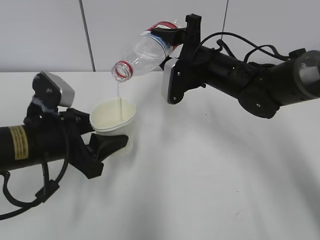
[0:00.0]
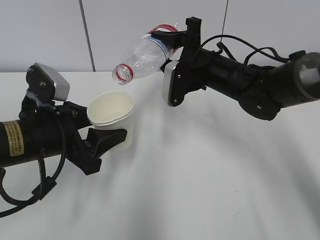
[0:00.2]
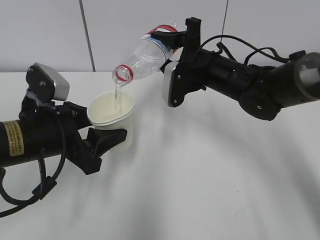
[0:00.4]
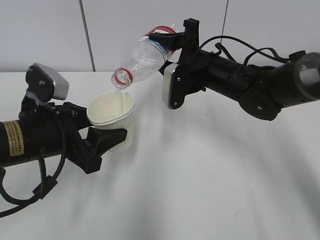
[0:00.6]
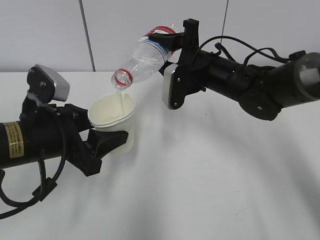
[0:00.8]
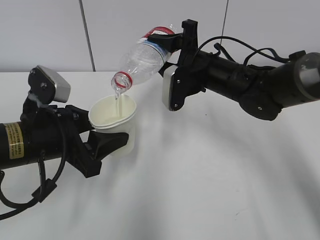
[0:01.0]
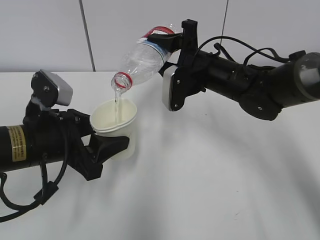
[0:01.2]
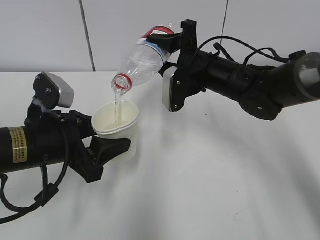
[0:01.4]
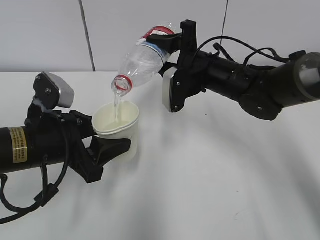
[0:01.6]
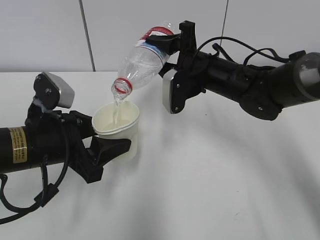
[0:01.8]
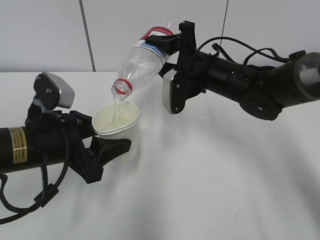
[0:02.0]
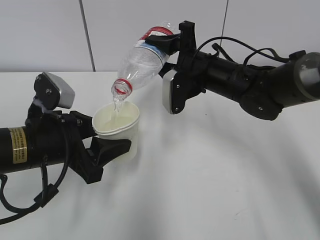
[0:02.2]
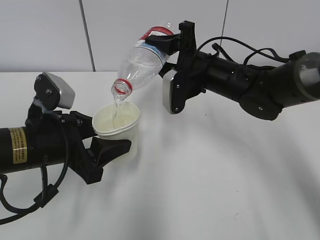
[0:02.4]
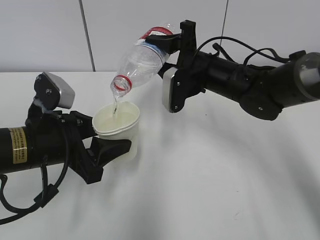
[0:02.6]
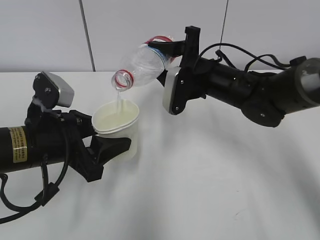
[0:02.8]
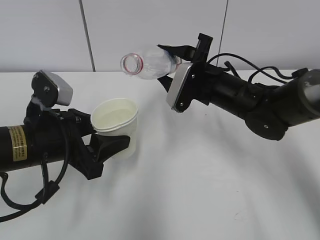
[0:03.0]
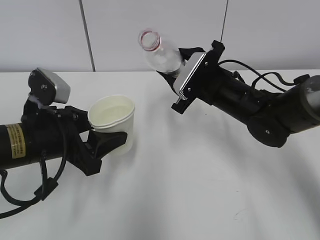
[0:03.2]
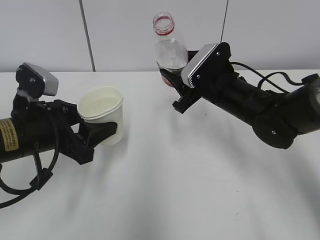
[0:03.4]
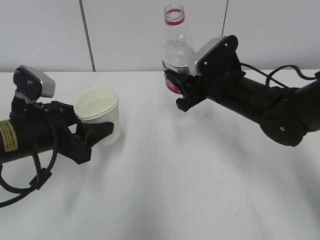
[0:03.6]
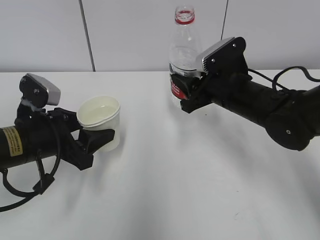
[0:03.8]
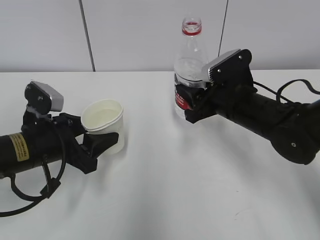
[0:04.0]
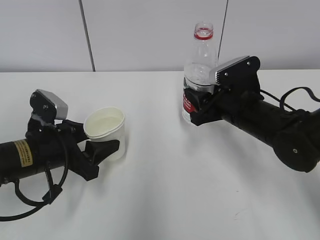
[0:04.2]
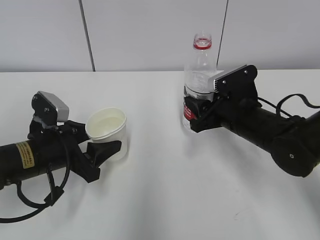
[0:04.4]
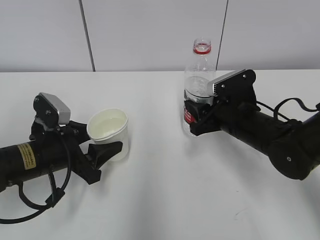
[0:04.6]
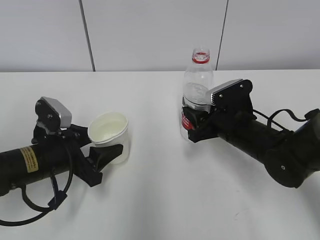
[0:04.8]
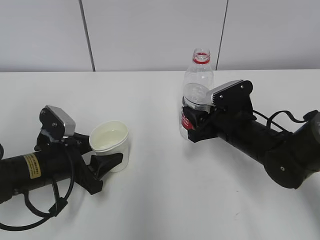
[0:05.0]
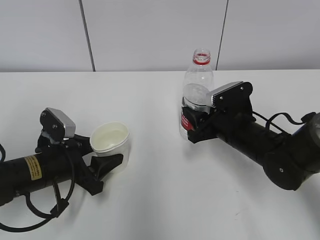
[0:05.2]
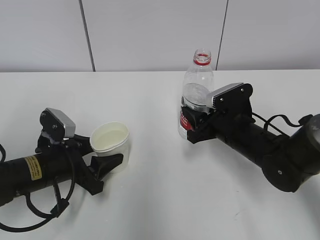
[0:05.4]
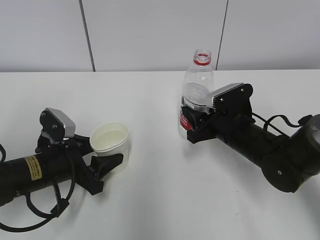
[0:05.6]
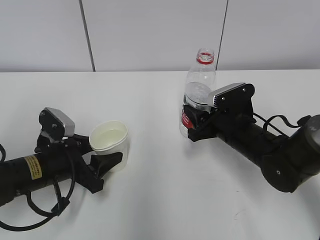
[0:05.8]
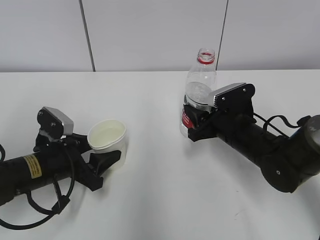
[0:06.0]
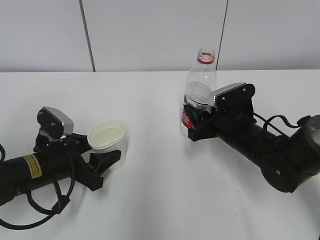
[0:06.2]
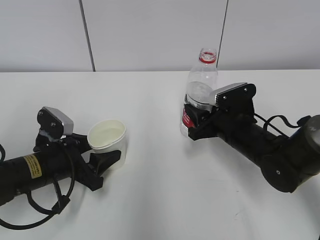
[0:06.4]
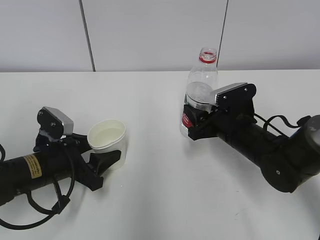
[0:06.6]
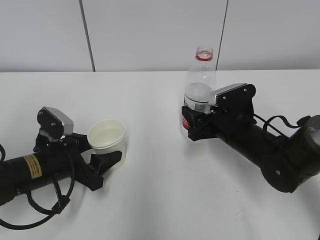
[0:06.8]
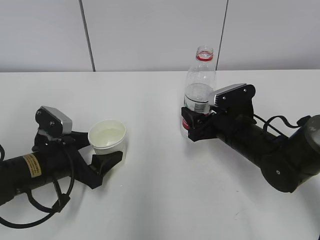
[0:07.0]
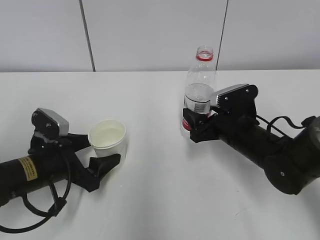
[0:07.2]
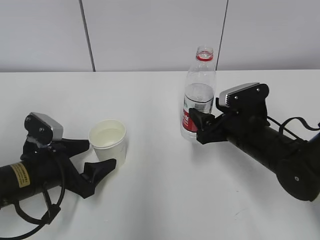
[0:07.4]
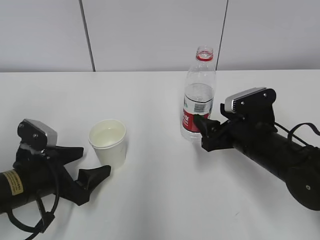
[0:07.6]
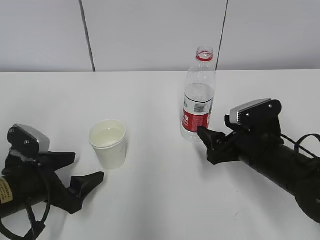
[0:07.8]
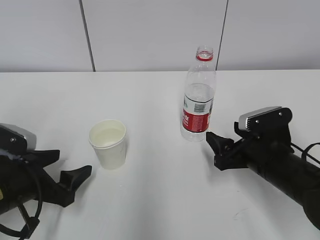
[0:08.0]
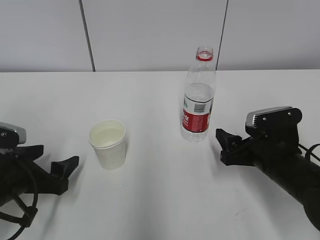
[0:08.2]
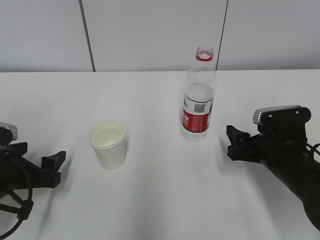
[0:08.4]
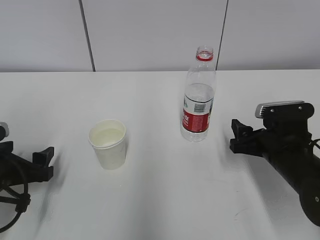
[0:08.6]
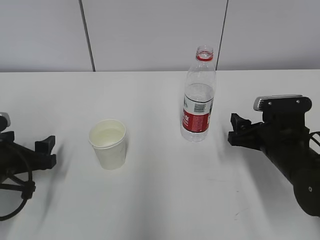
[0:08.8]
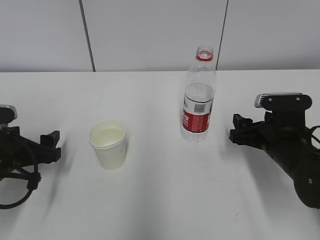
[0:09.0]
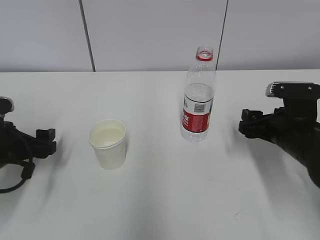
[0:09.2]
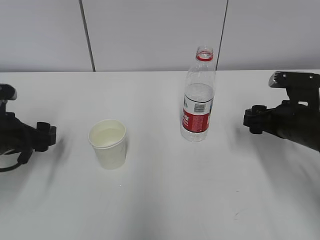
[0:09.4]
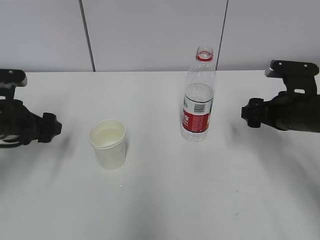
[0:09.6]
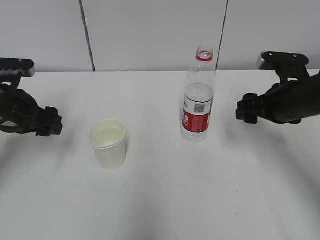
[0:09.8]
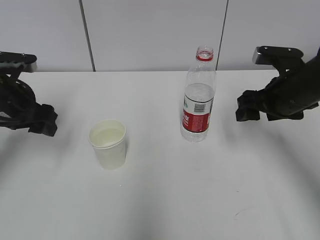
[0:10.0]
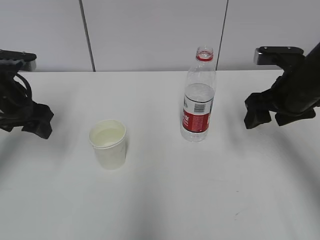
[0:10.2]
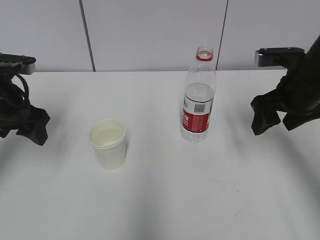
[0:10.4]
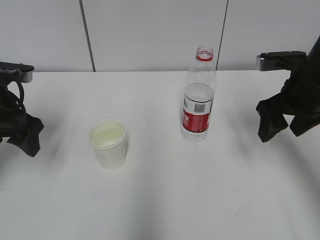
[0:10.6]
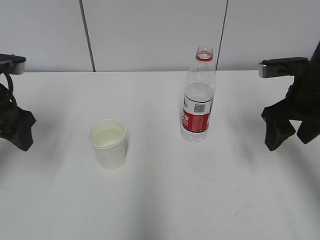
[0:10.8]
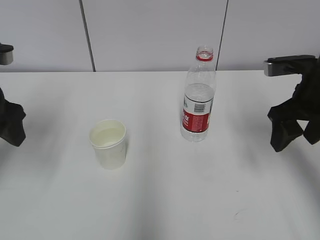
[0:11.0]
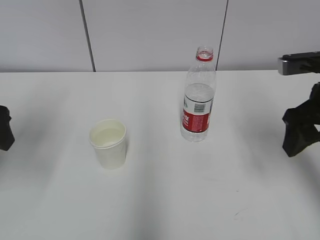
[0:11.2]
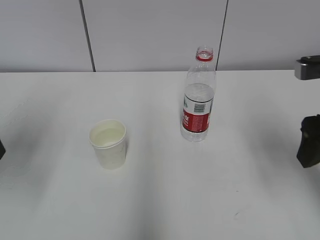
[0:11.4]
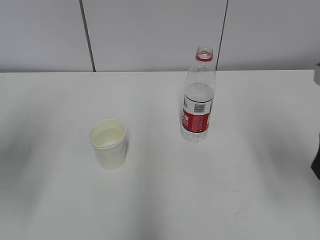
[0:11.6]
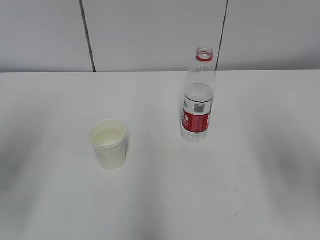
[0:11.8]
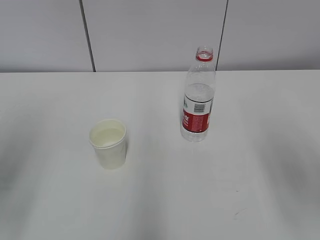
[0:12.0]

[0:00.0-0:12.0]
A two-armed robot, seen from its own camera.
Step, 0.0 to 0.6 s: Collect water with the right hand.
Step, 0.8 to 3.2 s: Place the paper cup with the left hand.
0.0 to 1.6 s: There are only small adjustments of the grippers.
3.0 to 4.4 s: The right gripper shifts by about 5 cm. The left gripper is displaced downward by roughly 5 cm.
4.4 to 6.0 s: The grippers stay close to where they were, moving slightly.
6.0 to 7.6 s: The right gripper opens, while the left gripper opens.
7.6 to 9.0 s: The left gripper shifts some 5 cm to the left.
9.0 to 10.4 s: The right gripper heads upward, covering roughly 10 cm, while the left gripper shifts approximately 15 cm upward and forward.
10.4 to 12.0 s: The right gripper shifts some 20 cm backward; the left gripper shifts approximately 20 cm backward and upward.

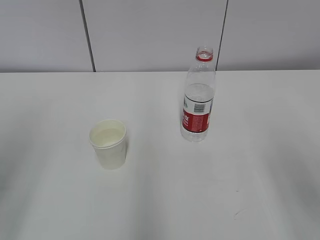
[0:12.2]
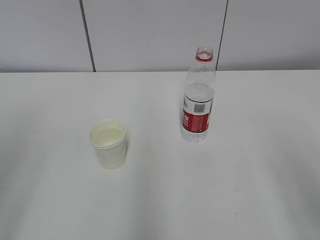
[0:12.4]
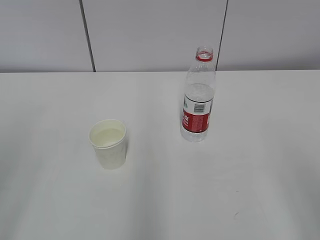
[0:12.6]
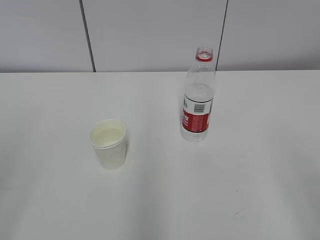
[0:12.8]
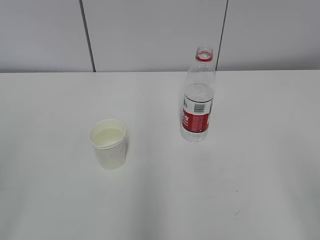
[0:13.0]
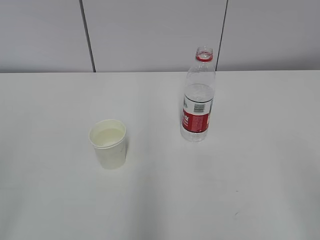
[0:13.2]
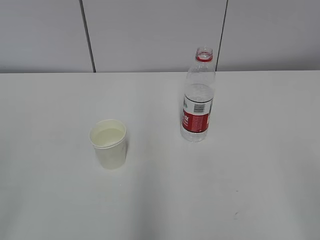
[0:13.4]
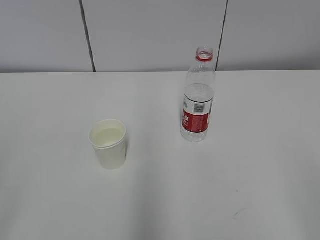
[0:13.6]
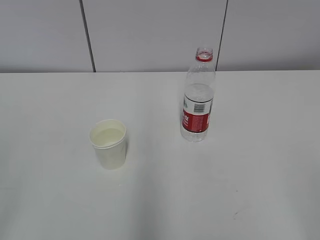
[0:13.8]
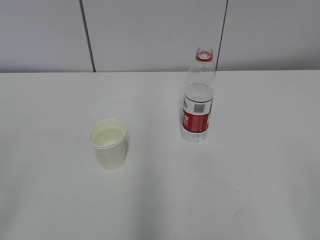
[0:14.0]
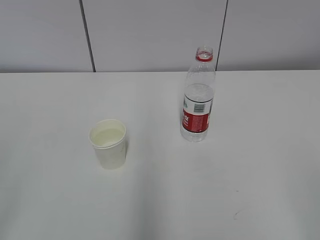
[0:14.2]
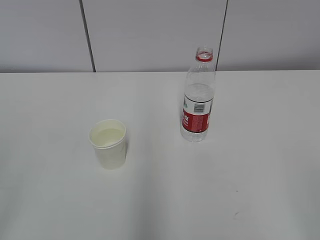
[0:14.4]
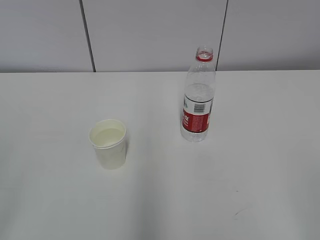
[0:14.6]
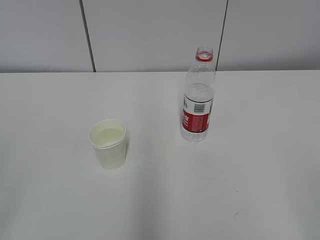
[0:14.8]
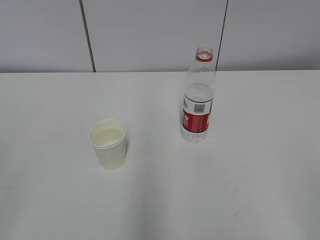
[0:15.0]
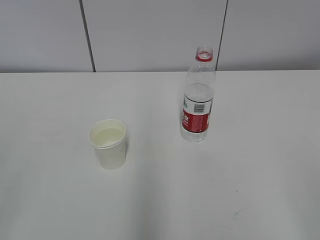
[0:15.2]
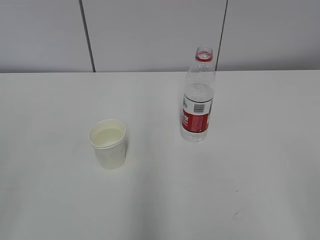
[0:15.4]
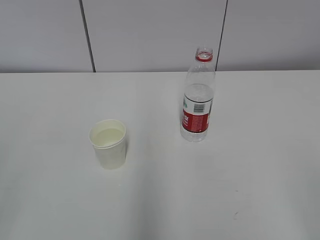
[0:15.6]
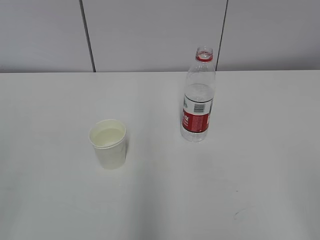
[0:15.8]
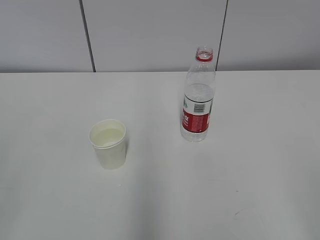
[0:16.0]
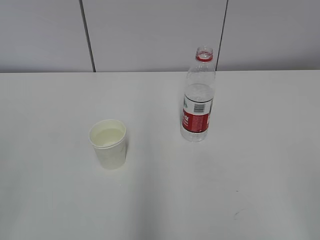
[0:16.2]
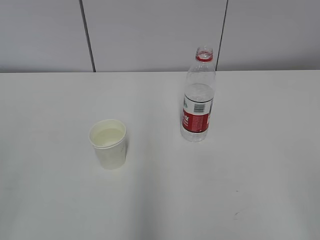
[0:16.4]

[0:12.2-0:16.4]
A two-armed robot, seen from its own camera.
15.0 to 16.4 s: Both grippers stay put.

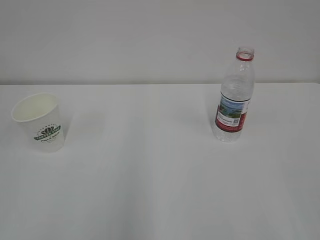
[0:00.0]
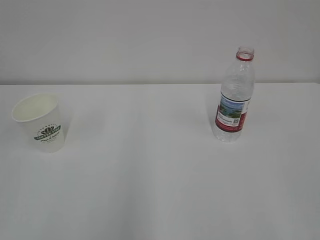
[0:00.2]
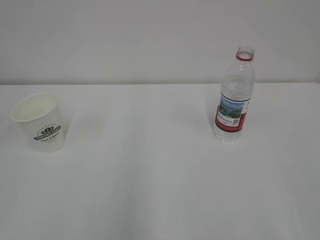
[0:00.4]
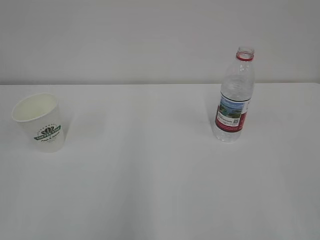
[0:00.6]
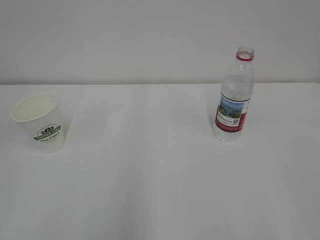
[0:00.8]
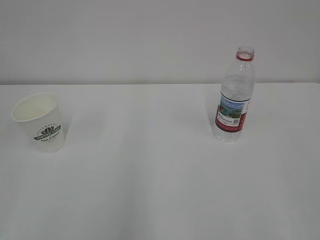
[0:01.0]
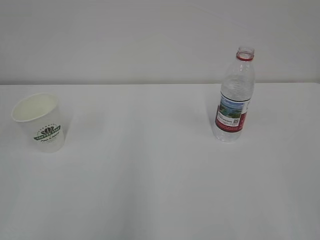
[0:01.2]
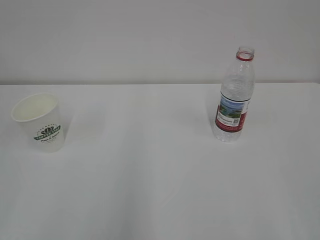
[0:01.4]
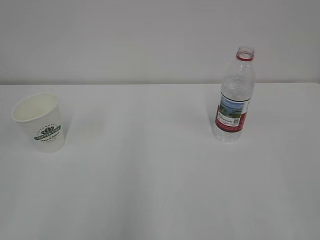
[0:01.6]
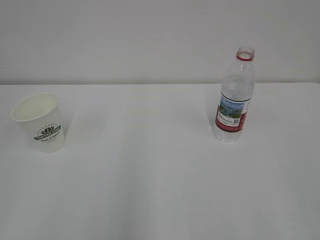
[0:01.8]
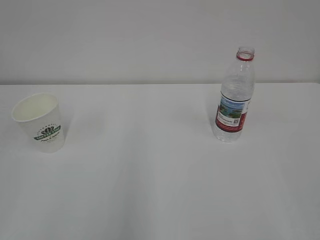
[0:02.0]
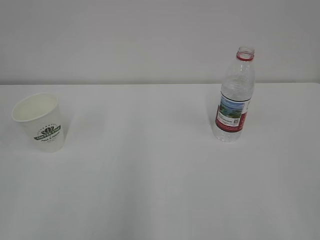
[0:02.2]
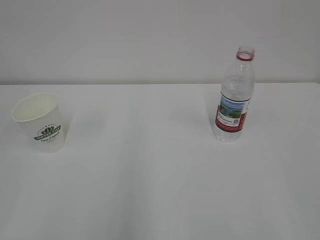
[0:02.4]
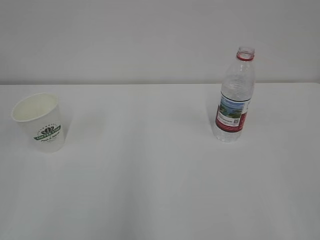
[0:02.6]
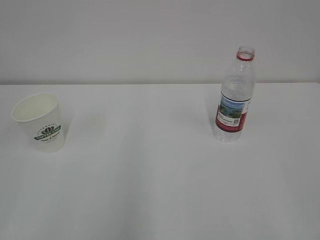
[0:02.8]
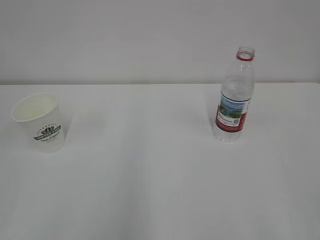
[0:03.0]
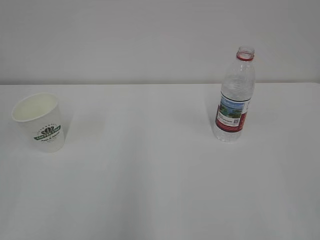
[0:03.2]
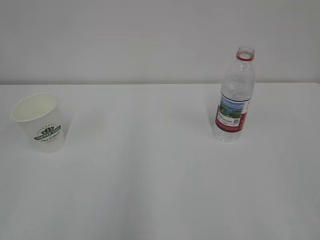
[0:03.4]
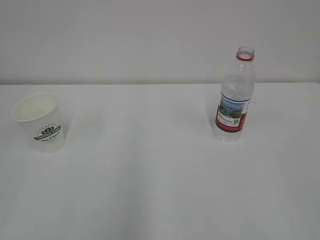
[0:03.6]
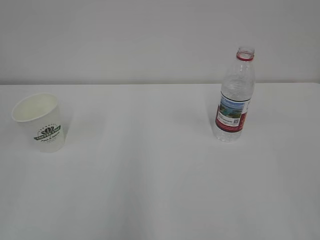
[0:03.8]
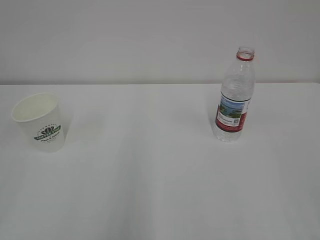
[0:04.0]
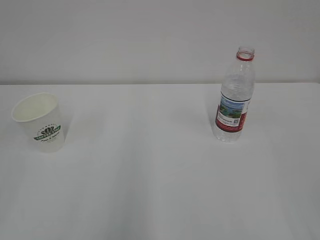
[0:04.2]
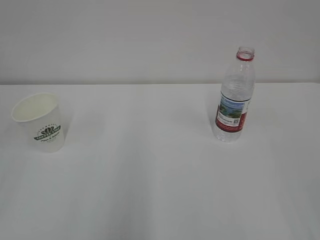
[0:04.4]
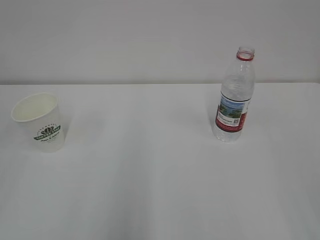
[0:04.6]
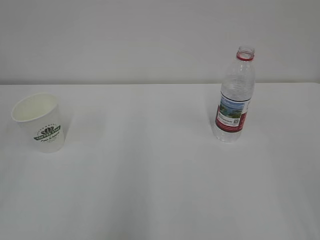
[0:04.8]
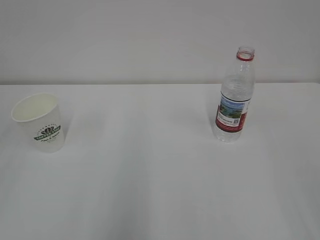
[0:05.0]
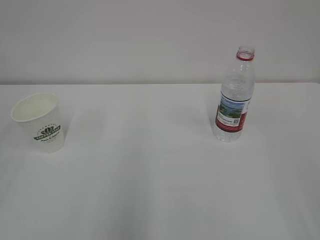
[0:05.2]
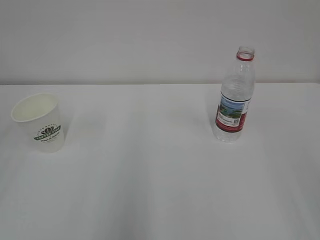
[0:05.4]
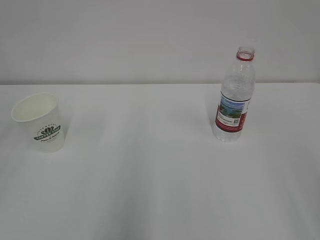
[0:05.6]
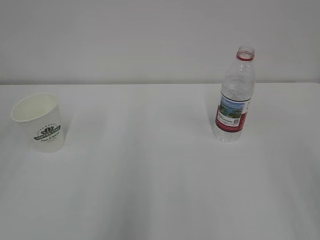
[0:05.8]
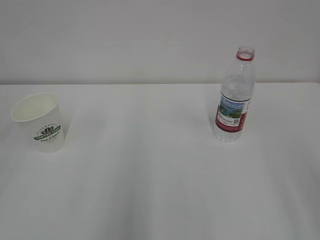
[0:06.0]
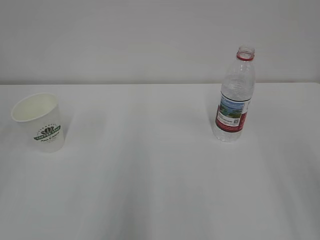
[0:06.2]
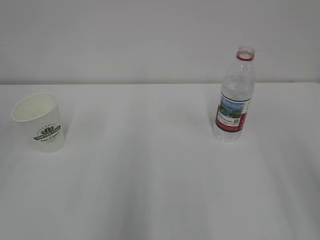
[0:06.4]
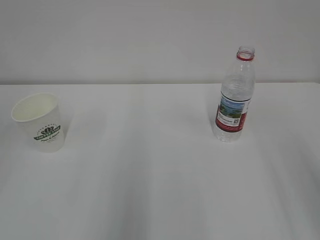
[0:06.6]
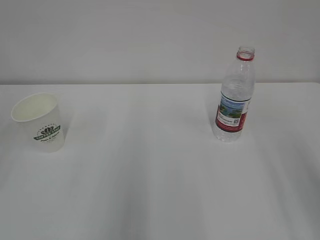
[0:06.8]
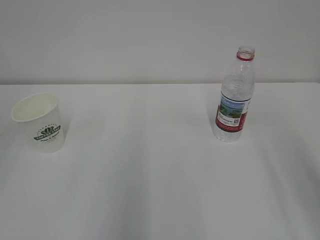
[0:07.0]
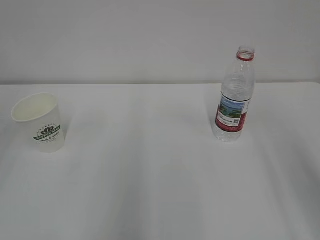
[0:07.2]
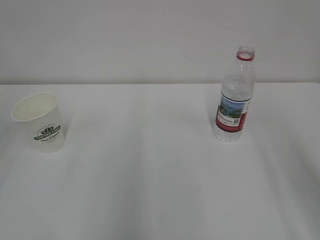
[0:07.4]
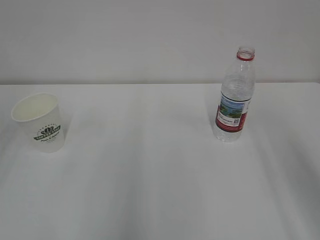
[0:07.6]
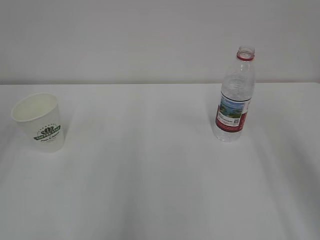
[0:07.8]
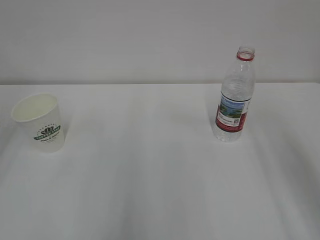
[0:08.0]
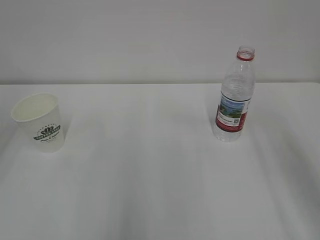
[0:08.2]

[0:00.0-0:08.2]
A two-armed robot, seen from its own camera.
1.6 to 3.2 s: Neither gripper changes place.
